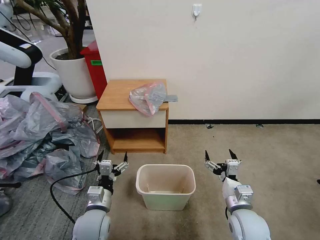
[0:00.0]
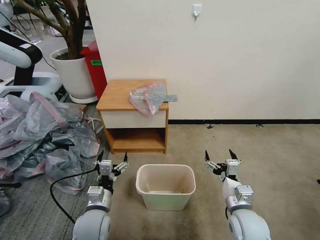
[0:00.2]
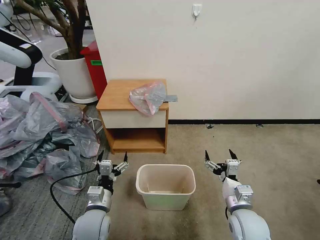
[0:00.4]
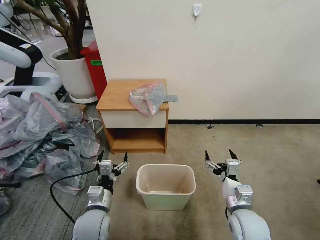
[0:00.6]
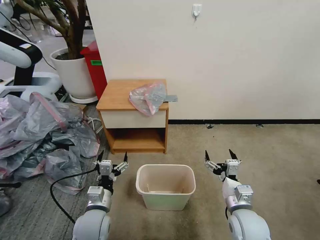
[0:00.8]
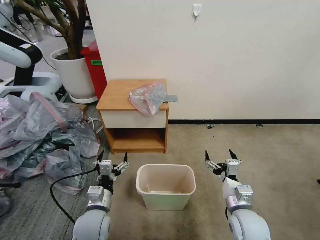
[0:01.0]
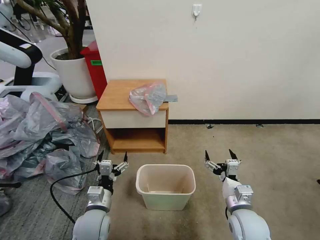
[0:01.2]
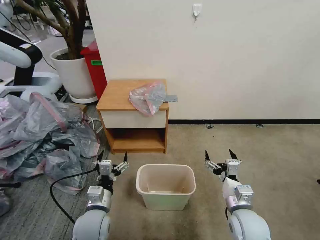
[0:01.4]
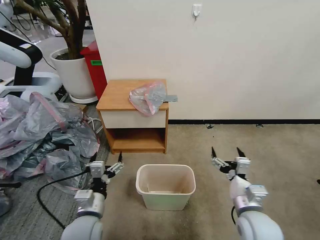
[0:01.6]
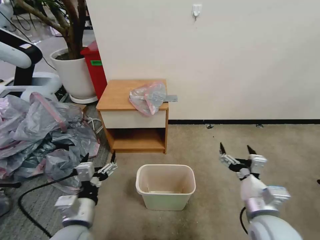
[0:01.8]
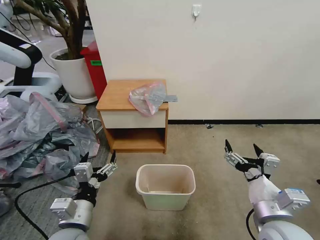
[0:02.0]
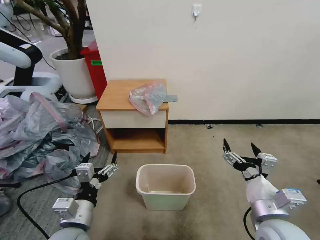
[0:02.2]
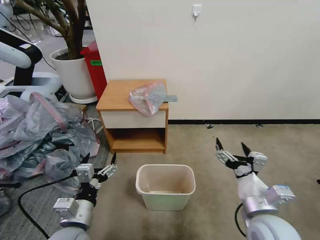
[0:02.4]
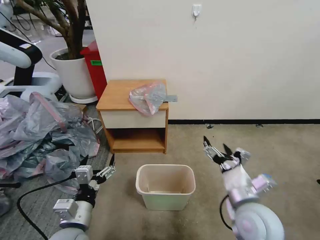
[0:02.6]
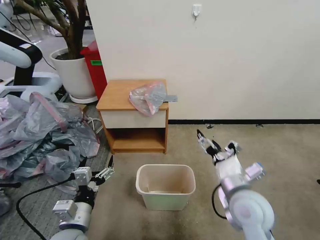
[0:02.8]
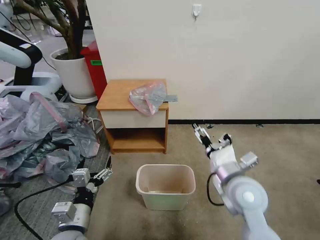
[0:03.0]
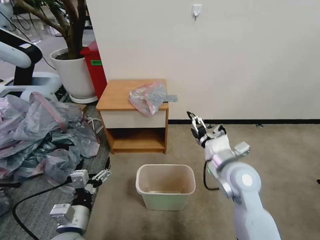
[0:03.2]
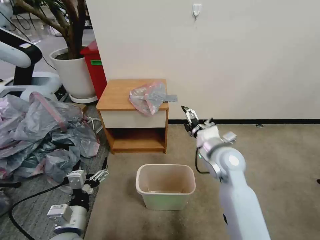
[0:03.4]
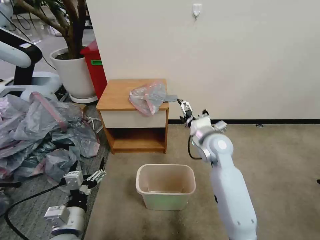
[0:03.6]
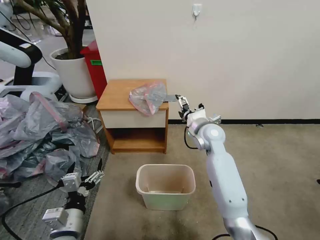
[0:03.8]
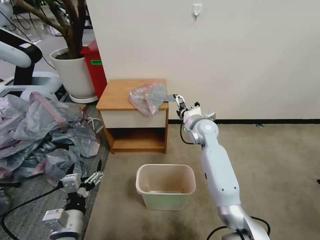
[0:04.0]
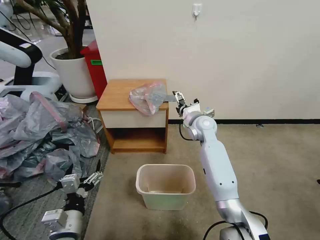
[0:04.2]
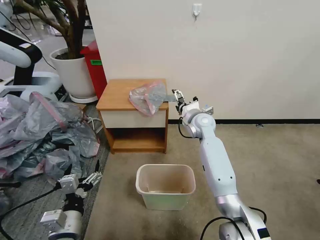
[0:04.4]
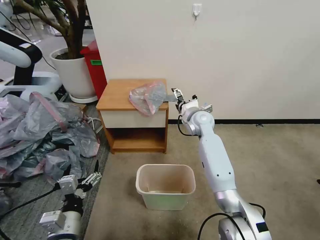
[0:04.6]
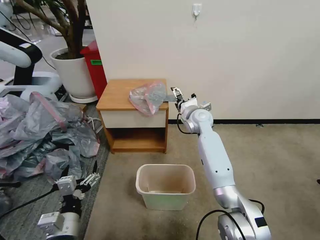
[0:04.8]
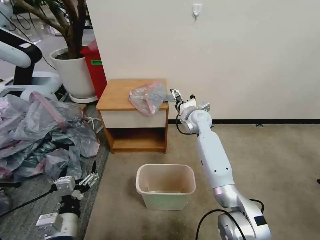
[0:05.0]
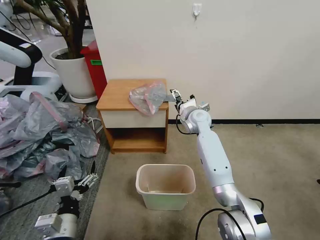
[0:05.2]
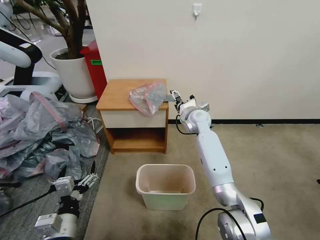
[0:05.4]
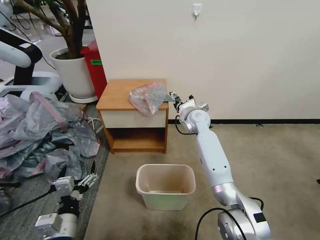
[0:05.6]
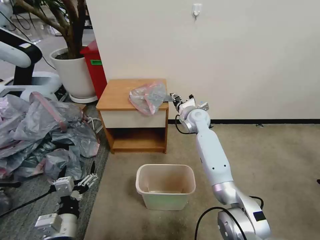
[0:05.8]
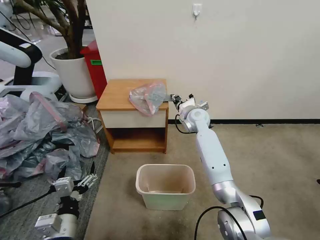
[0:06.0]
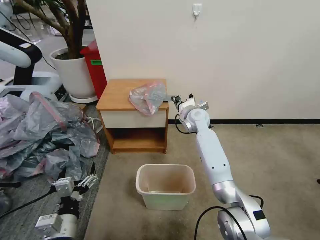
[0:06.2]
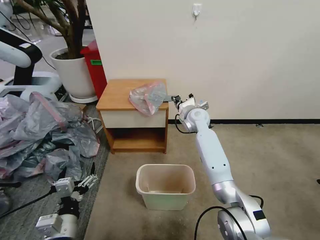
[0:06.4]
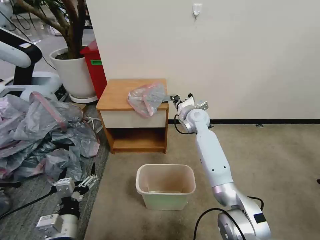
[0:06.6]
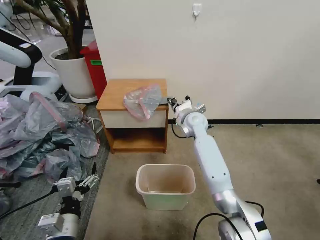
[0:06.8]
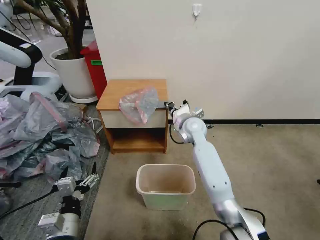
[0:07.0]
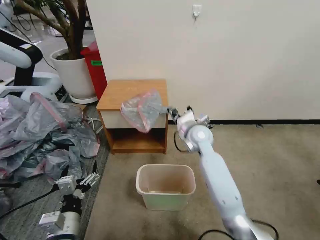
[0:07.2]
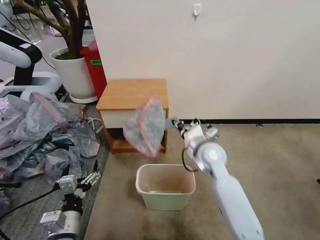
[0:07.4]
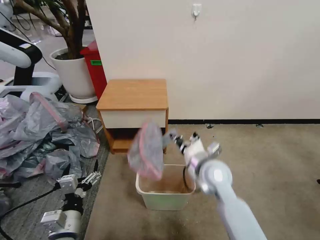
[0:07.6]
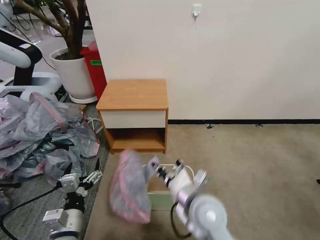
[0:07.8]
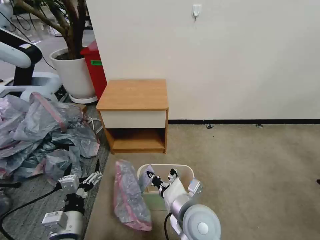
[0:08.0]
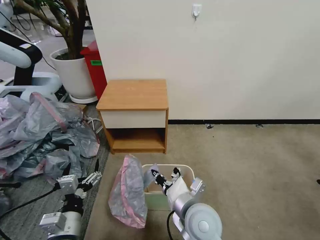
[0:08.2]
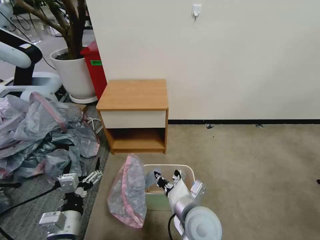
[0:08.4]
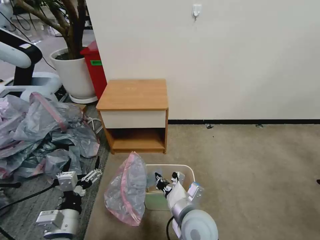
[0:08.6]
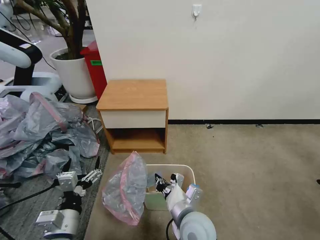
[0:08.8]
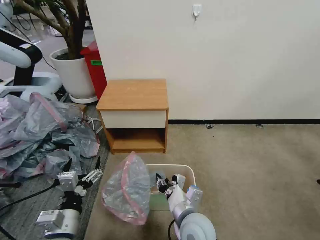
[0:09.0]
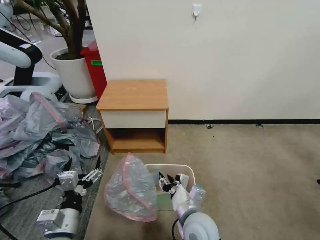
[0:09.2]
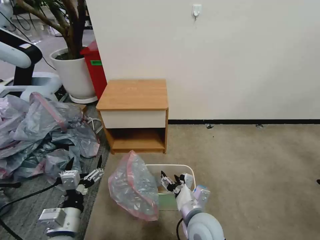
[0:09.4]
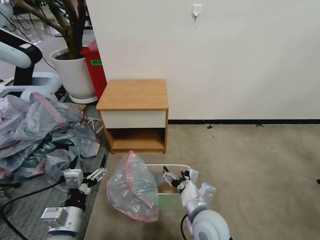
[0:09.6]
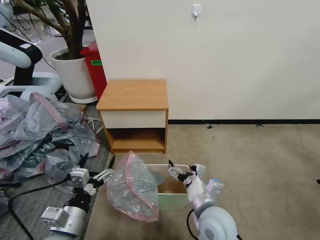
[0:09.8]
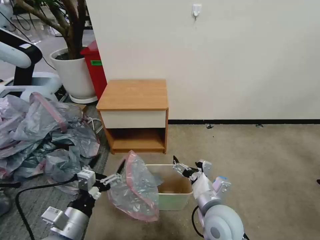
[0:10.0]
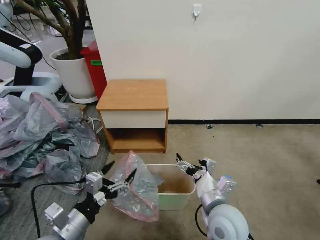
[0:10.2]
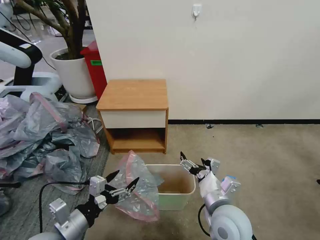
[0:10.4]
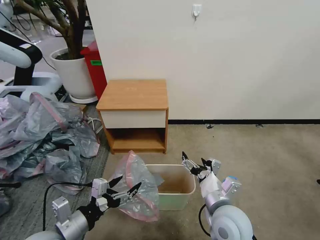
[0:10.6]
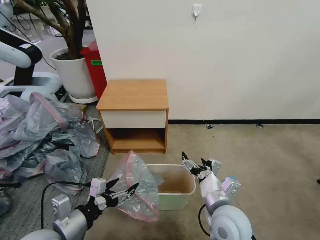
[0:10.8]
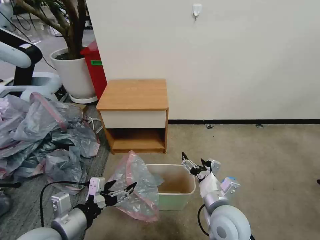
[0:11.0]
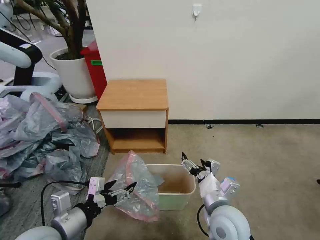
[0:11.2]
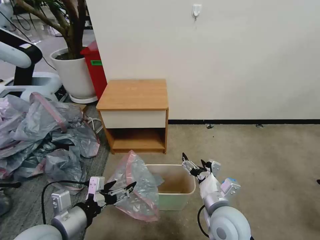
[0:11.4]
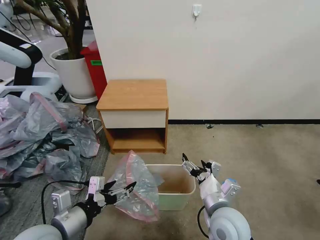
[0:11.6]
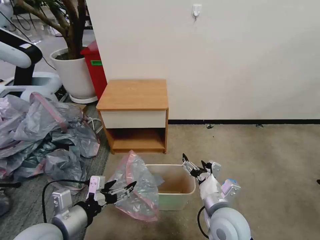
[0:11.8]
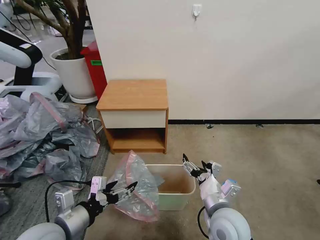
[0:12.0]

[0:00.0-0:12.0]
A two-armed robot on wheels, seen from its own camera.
Task of the whole recording: Pick up the garbage bag from the table and place it over the trash can.
0:01.6 to 0:03.0: The right gripper travels upward and forward by roughly 10 cm.
0:03.0 to 0:04.4: The right gripper shifts approximately 25 cm forward.
0:04.4 to 0:06.0: The right gripper closes its fingers.
0:06.0 to 0:07.6: The right gripper goes some 25 cm backward.
0:07.6 to 0:09.0: The right gripper heads backward, downward and to the left, covering roughly 15 cm.
0:09.0 to 0:10.4: The right gripper goes approximately 10 cm to the right, and opens.
0:10.4 to 0:12.0: The grippers stay close to where they were, moving slightly.

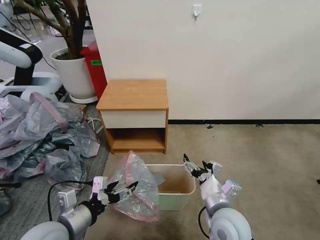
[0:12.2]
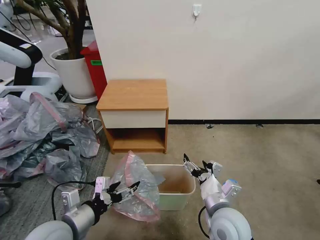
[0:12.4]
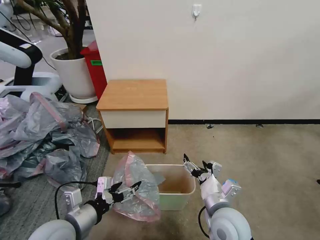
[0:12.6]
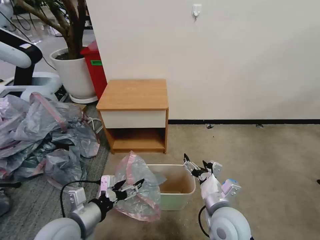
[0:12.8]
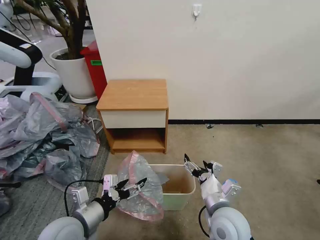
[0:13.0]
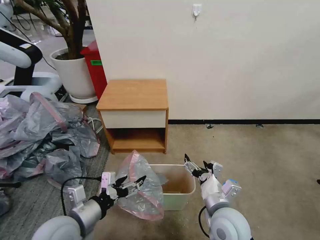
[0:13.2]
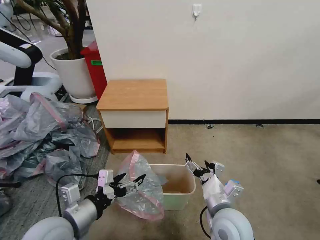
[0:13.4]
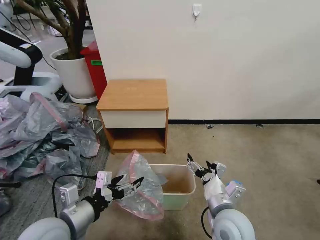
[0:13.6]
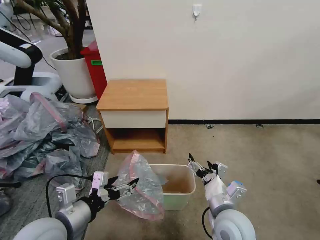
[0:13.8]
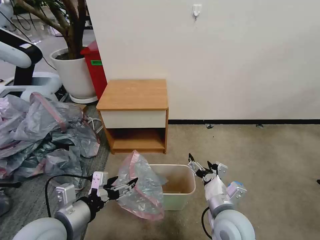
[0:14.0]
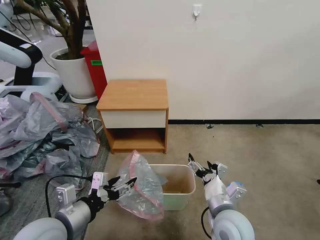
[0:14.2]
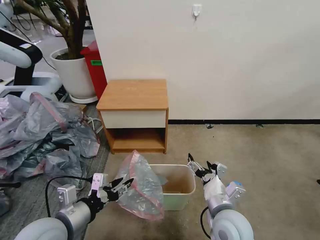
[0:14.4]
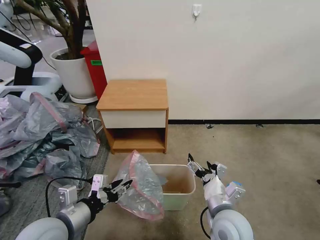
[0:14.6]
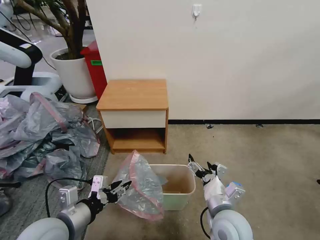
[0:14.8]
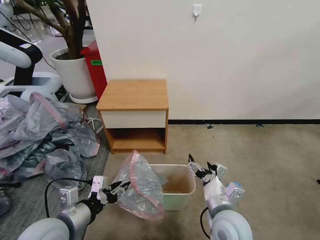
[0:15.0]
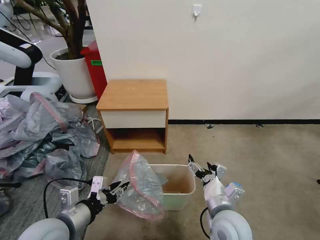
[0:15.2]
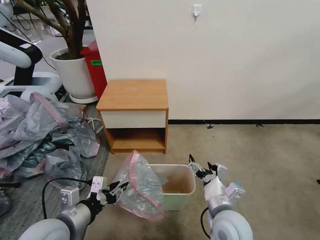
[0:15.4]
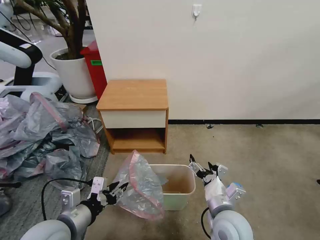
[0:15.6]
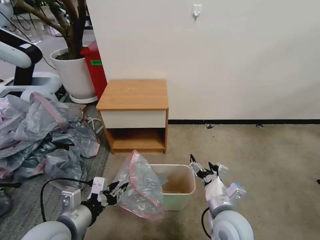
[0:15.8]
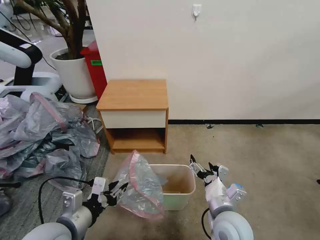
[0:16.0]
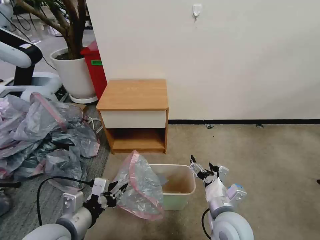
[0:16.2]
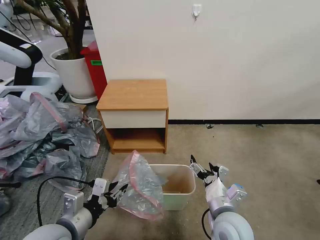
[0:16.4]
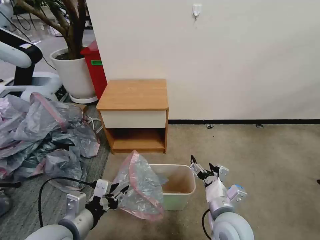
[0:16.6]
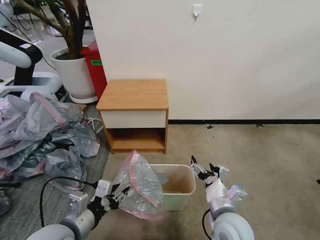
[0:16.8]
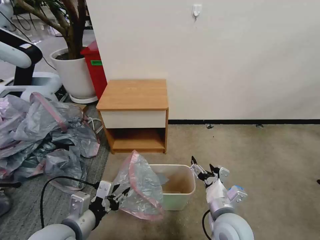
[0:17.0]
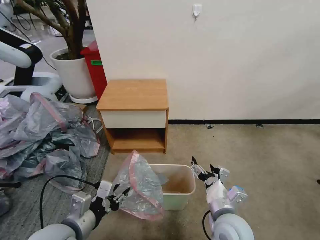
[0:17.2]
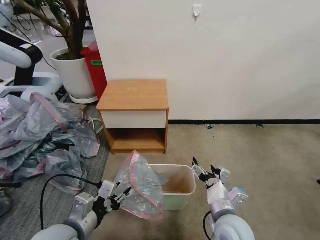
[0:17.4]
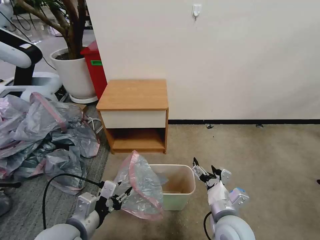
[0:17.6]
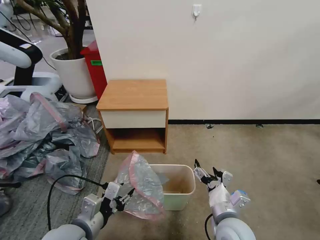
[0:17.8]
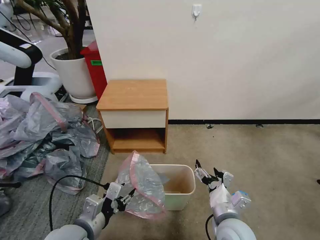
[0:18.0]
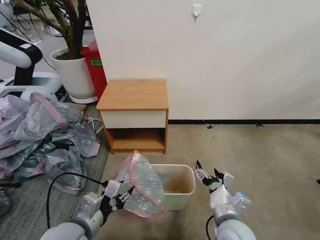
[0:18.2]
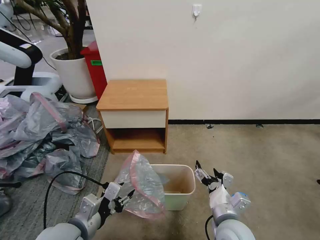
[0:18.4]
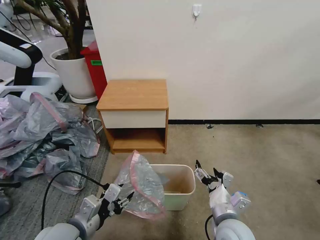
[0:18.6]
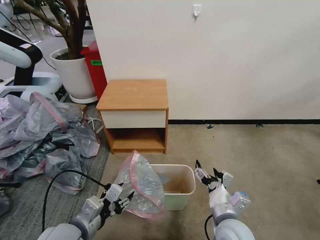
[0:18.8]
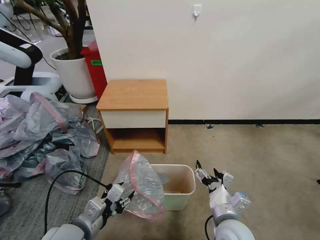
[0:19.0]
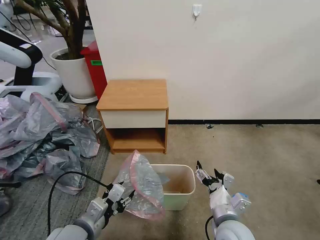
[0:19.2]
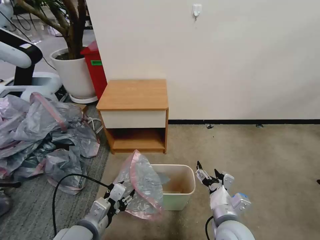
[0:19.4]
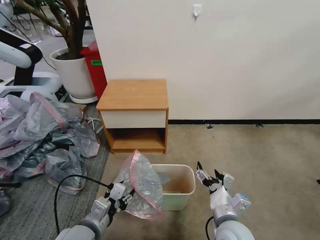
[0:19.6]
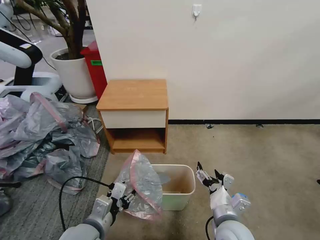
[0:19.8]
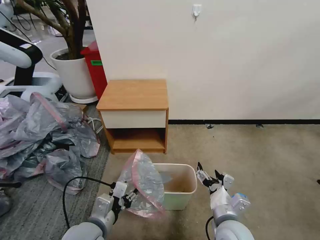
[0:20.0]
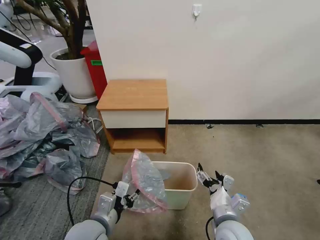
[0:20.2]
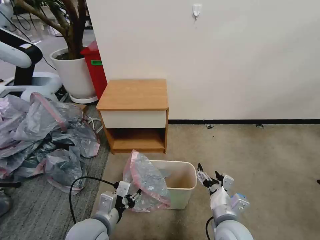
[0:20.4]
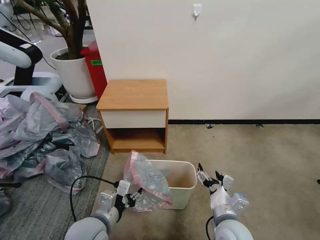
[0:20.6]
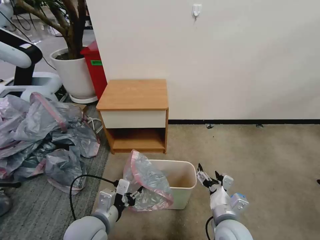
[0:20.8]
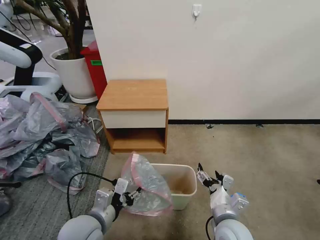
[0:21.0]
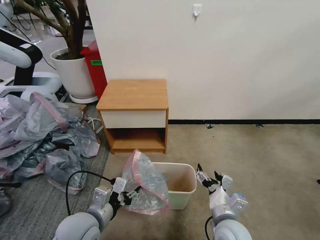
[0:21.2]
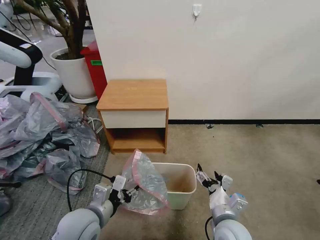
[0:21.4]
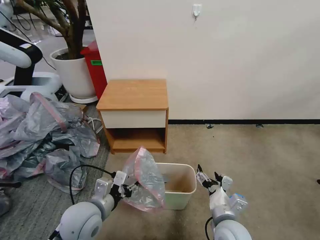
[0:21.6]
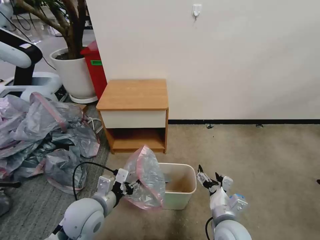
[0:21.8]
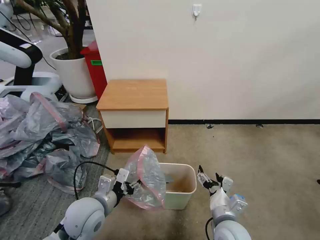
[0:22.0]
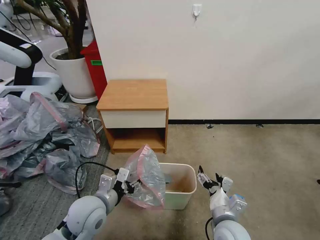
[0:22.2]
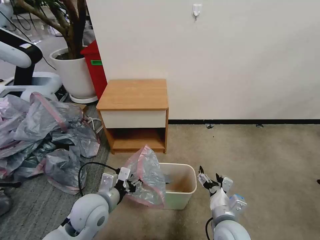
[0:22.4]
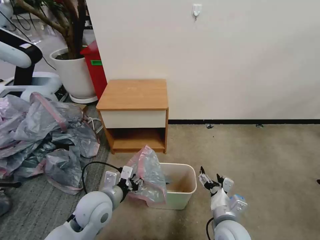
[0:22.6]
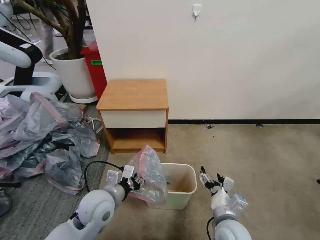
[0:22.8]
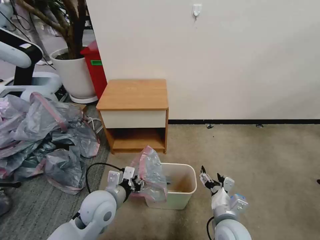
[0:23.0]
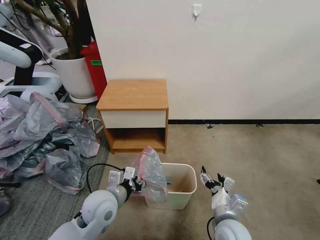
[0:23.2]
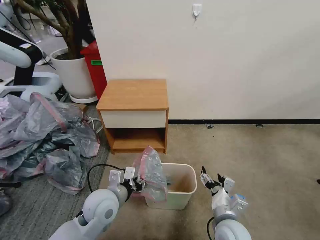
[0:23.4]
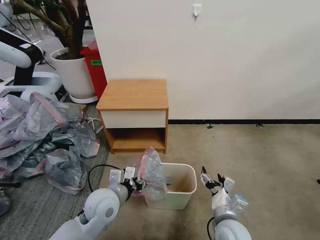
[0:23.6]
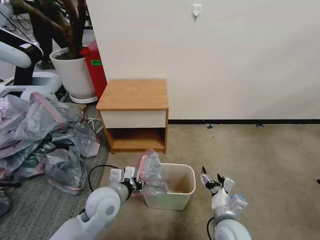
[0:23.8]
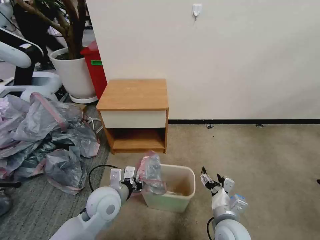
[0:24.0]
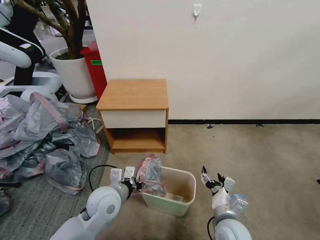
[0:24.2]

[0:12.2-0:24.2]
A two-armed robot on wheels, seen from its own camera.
Task of the whole recording: Pick up the garbage bag from the table and place it over the trash can.
0:12.2 to 0:13.8: The grippers stay close to where they were, moving slightly.
0:13.8 to 0:15.2: The left gripper closes.
0:15.2 to 0:16.6: The grippers move only a little.
0:16.6 to 0:18.2: The grippers make only small movements.
0:18.2 to 0:21.2: The grippers make only small movements.
0:21.2 to 0:22.6: The left gripper moves forward, approximately 5 cm.
0:22.6 to 0:24.2: The left gripper closes up.
